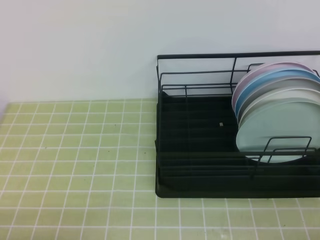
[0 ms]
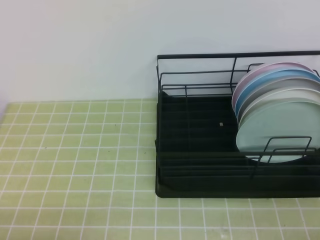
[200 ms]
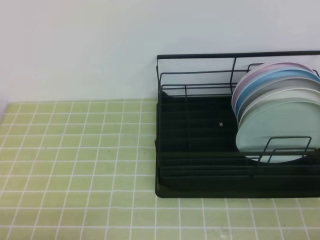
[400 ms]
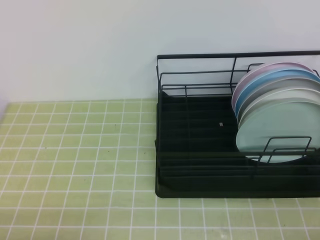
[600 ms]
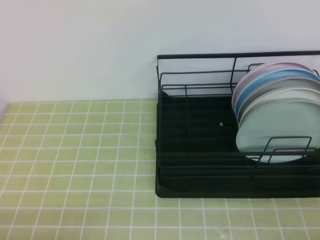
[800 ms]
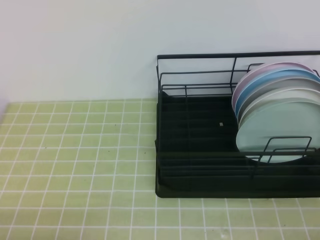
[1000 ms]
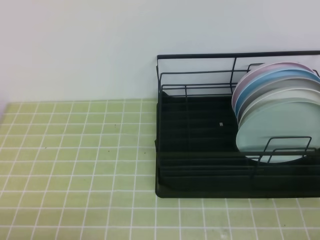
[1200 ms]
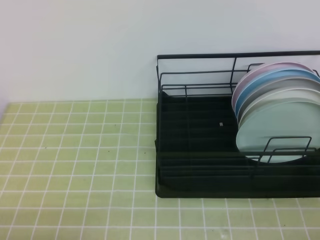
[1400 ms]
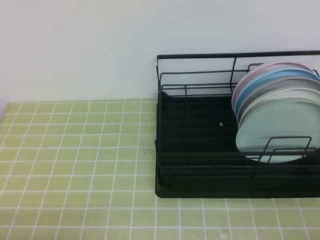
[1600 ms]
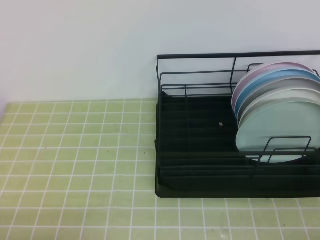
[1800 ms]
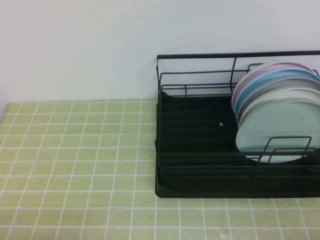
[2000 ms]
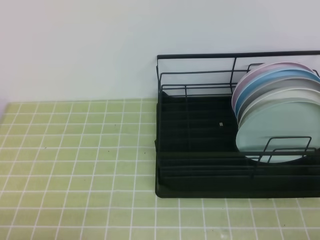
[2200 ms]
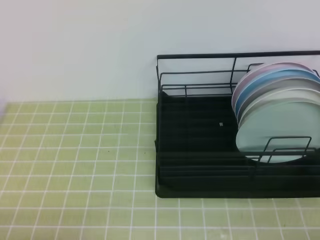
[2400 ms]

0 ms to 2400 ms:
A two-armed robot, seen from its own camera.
0 ms to 2400 ms: The two grippers keep their place.
